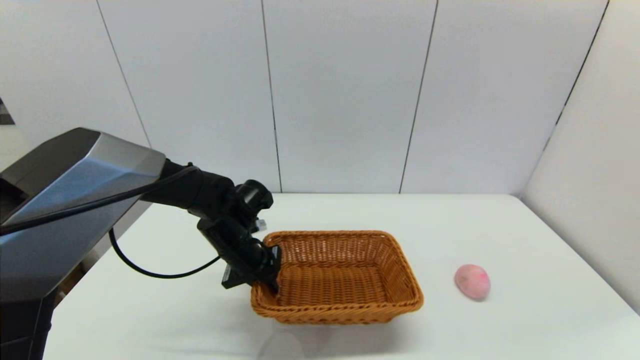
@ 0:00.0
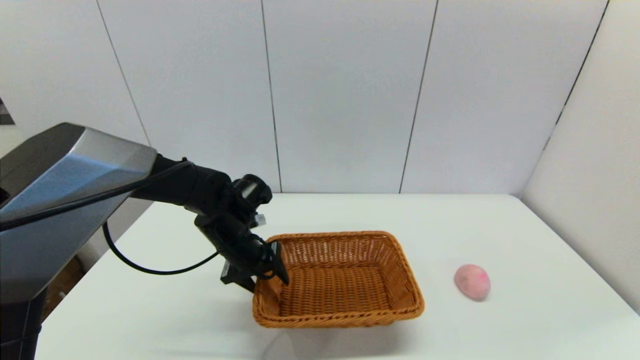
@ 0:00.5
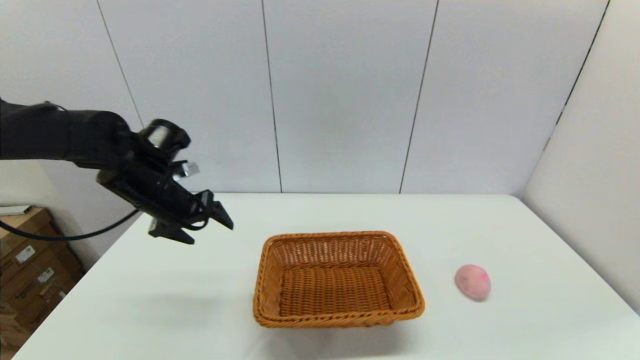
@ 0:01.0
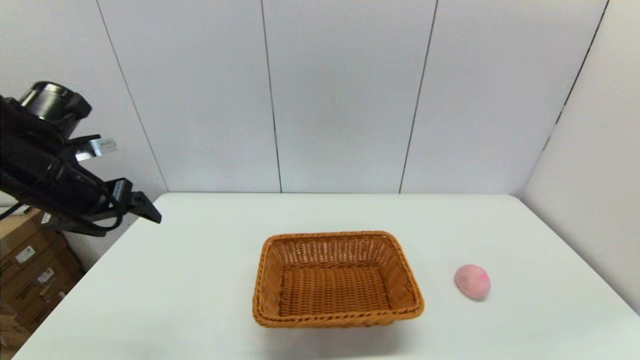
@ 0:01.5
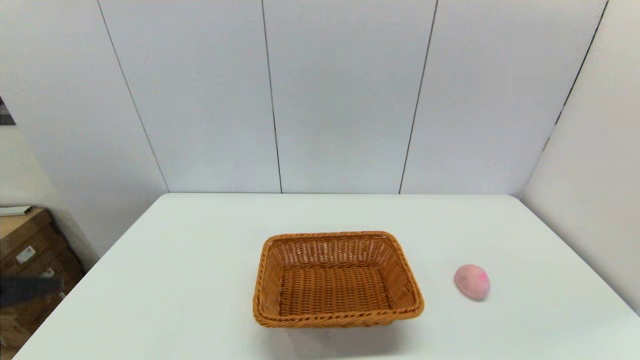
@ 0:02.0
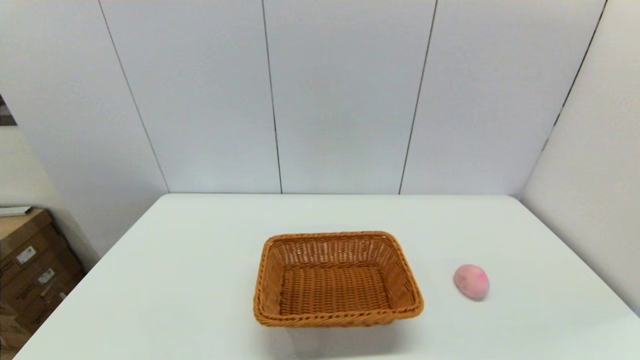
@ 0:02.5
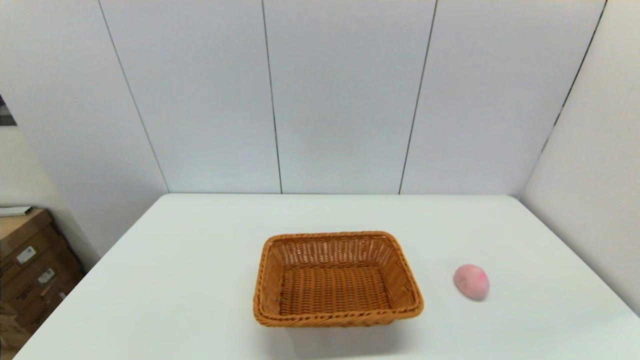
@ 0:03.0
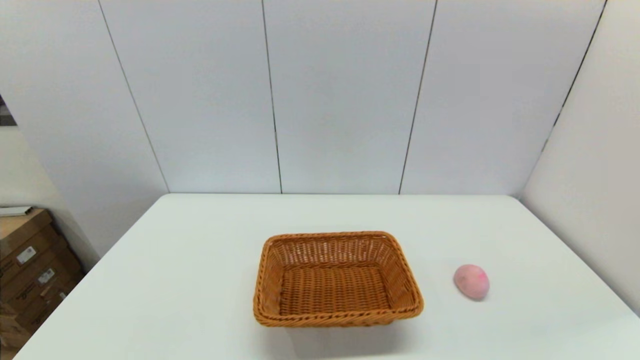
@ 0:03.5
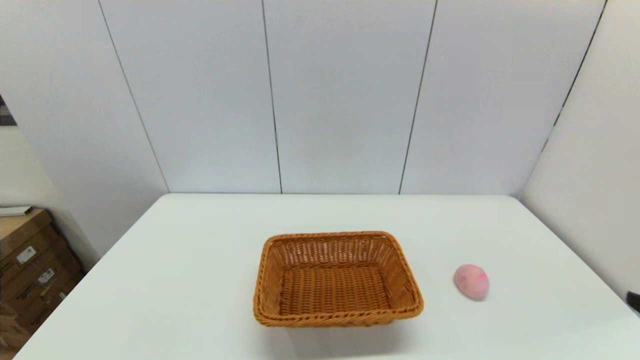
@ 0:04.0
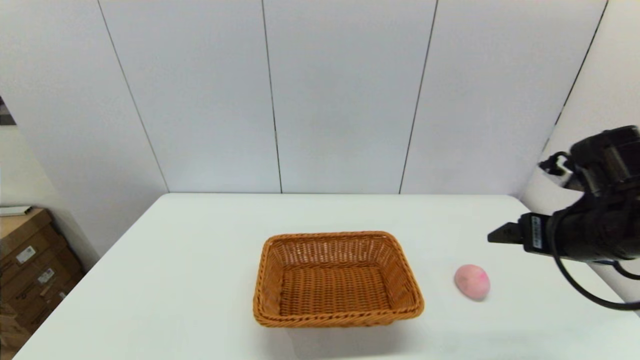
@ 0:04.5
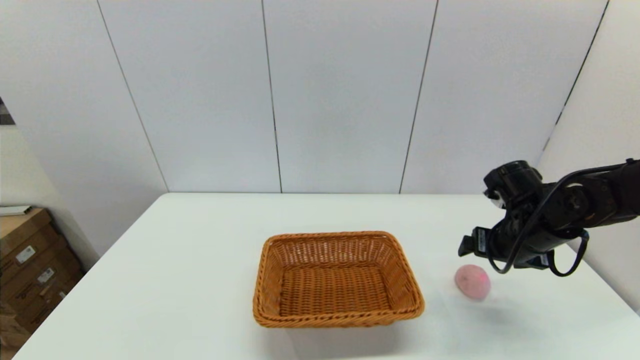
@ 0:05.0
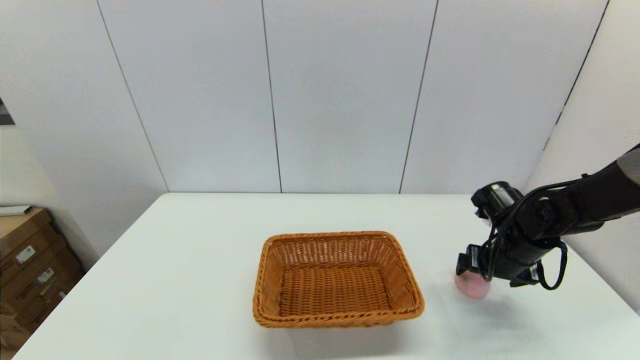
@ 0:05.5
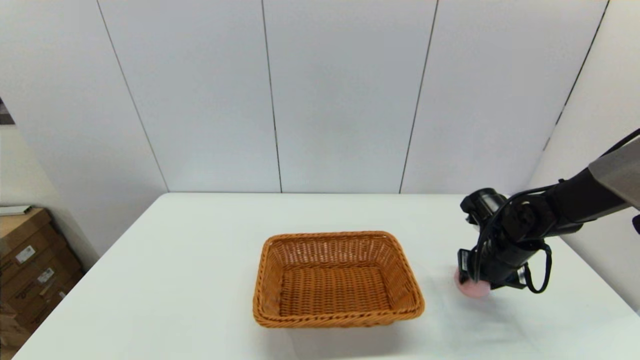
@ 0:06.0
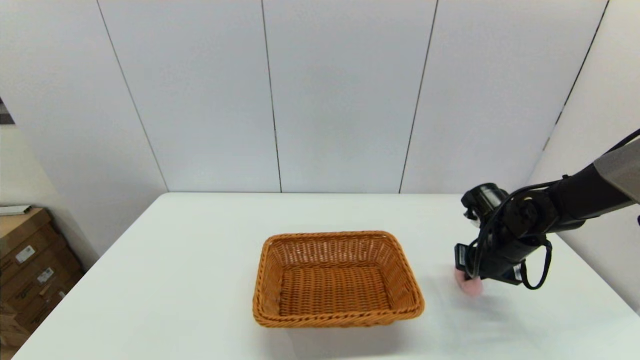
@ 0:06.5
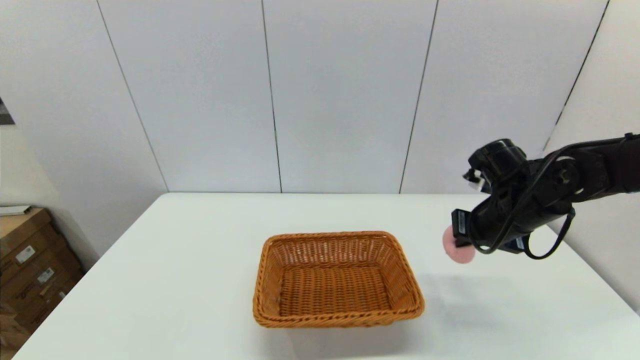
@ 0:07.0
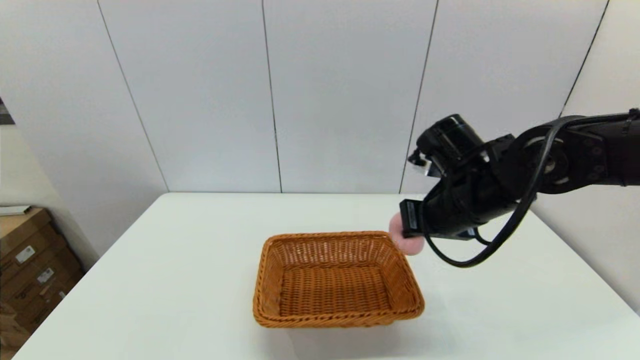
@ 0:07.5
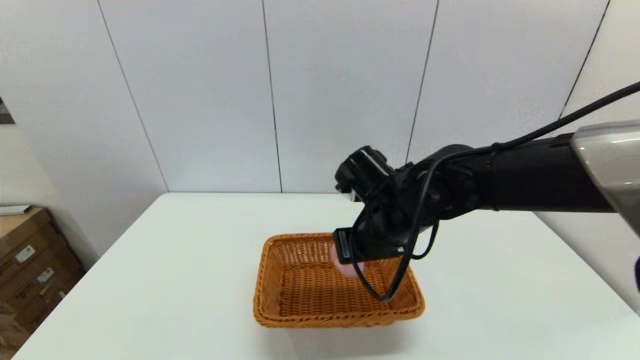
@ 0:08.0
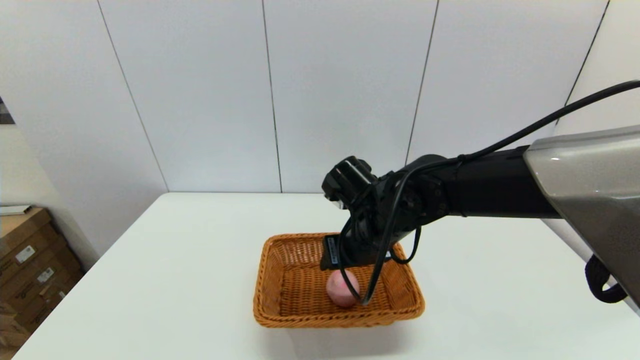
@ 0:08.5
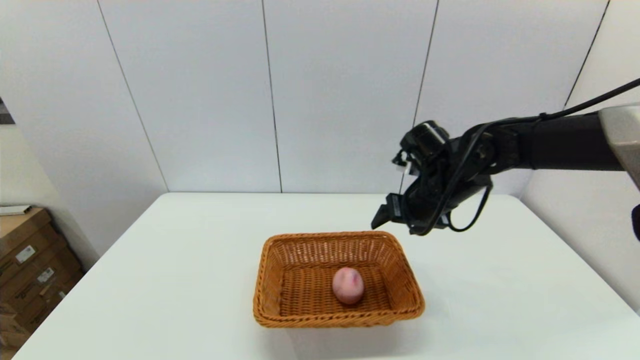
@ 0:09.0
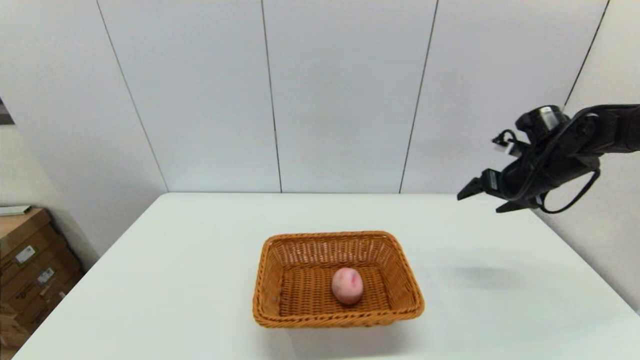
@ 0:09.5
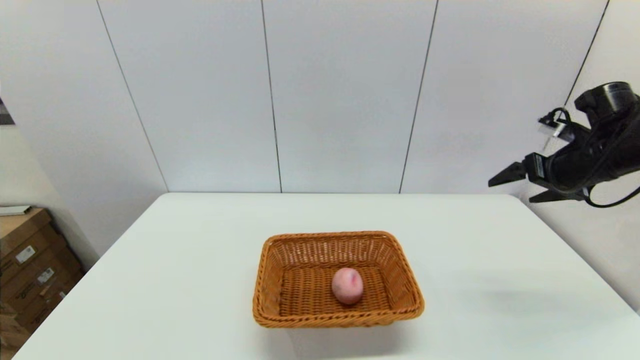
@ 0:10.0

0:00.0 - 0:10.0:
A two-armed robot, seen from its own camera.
Step, 0:01.0 - 0:06.0: Grasp the peach with the right gripper.
Step, 0:07.0 - 0:08.5: Place the peach into the light basket with the right gripper.
0:00.0 - 0:02.0: The left gripper goes approximately 35 cm backward, upward and to the left, and opens up.
0:04.0 - 0:06.0: The right gripper travels forward and downward by roughly 35 cm, and closes its fingers.
0:06.0 - 0:08.0: The right gripper moves to the left and upward, approximately 25 cm.
0:08.0 - 0:10.0: The right gripper goes roughly 30 cm to the right, and opens.

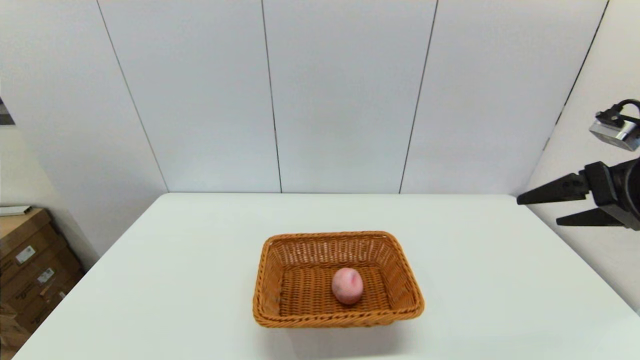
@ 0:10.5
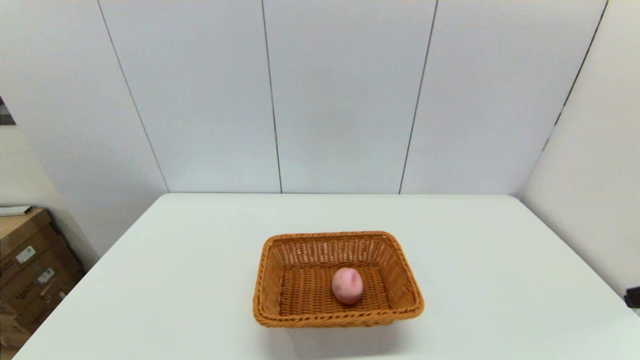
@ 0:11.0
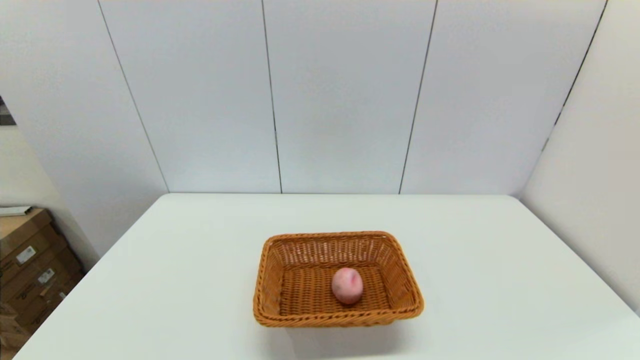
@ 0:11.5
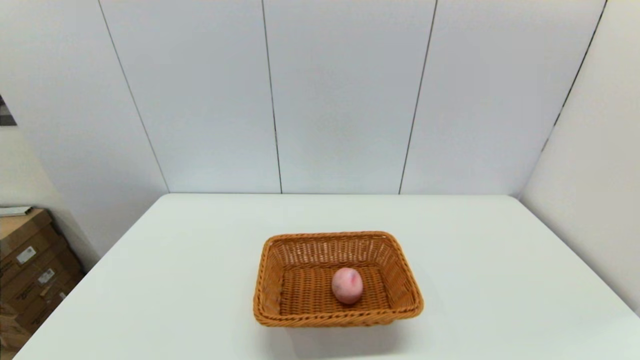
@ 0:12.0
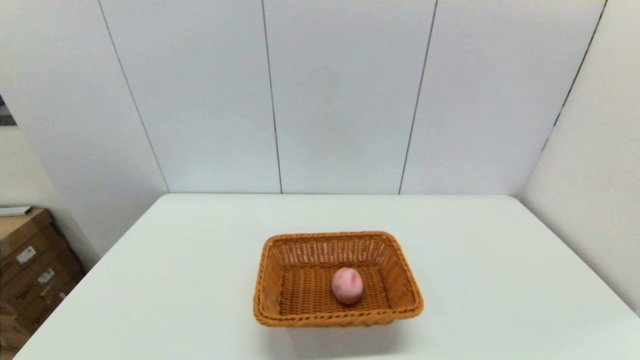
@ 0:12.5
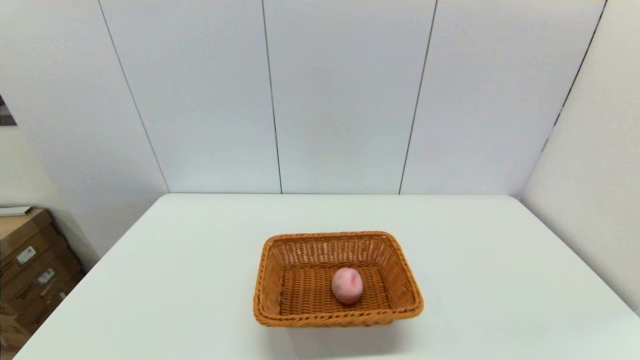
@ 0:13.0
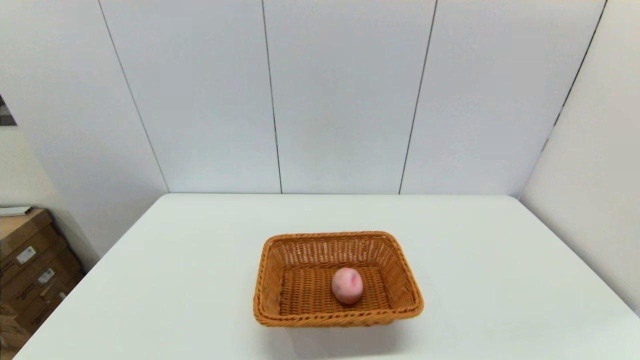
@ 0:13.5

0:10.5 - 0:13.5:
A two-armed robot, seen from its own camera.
0:10.5 - 0:12.0: The right gripper is displaced backward by some 25 cm.

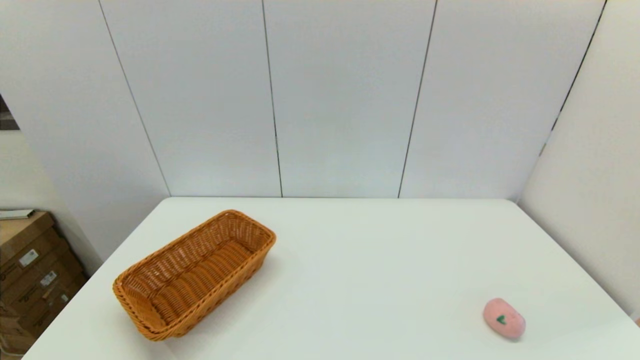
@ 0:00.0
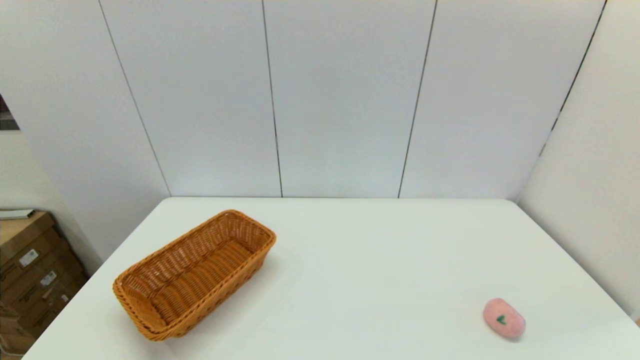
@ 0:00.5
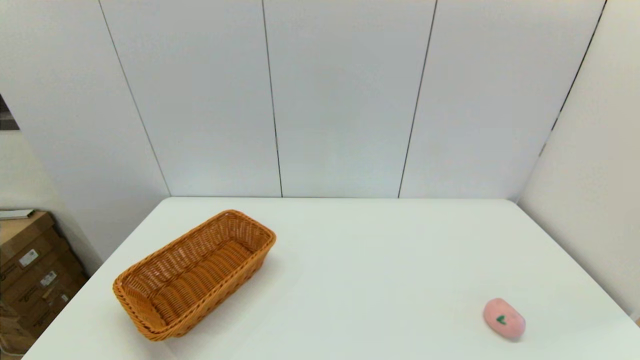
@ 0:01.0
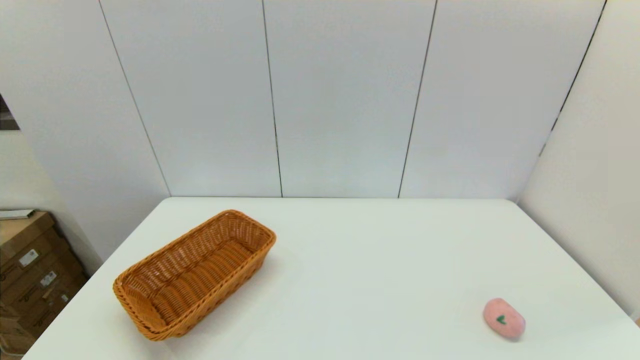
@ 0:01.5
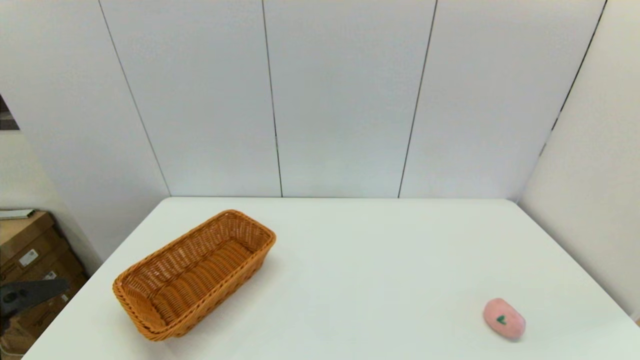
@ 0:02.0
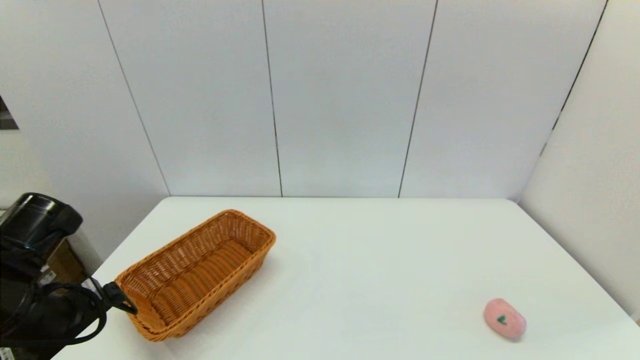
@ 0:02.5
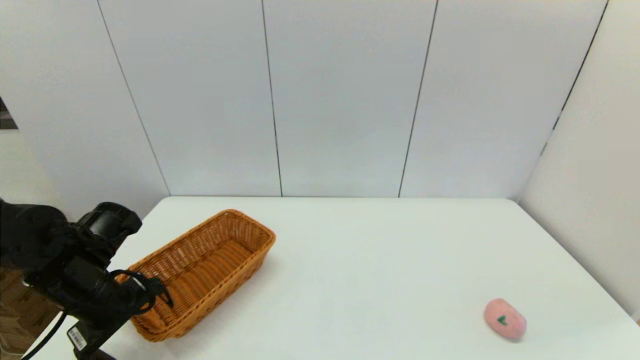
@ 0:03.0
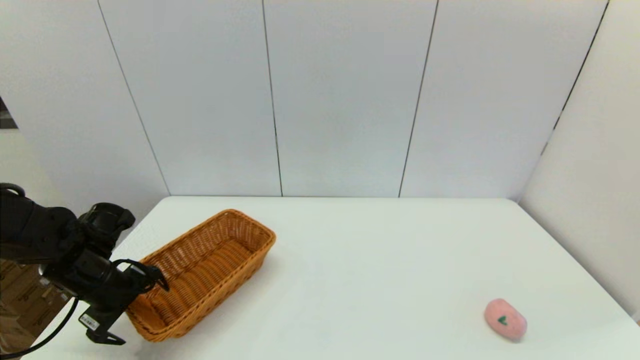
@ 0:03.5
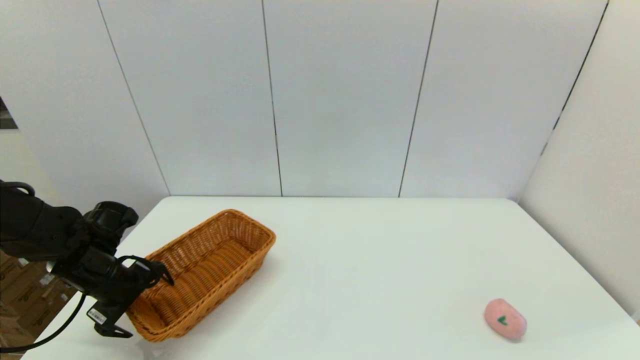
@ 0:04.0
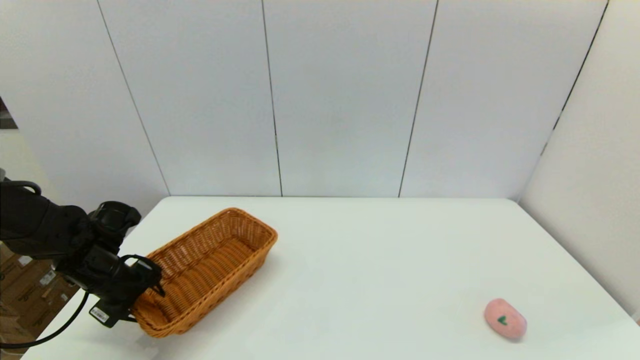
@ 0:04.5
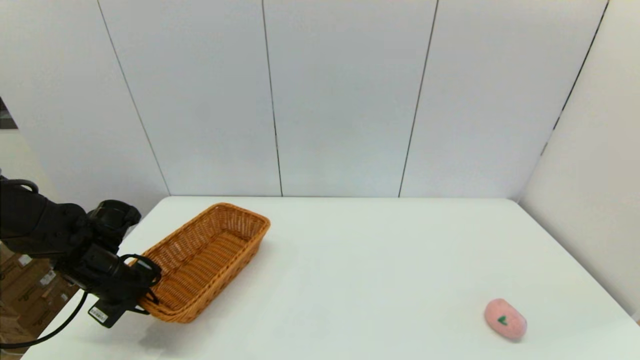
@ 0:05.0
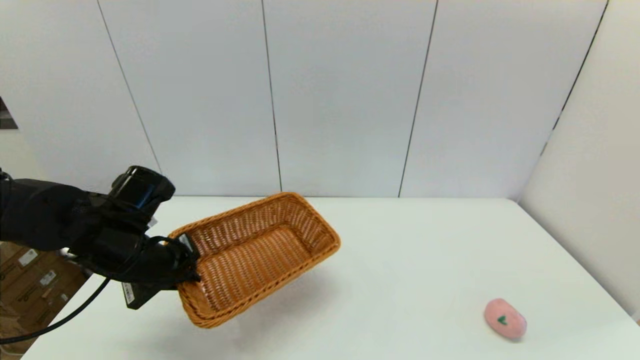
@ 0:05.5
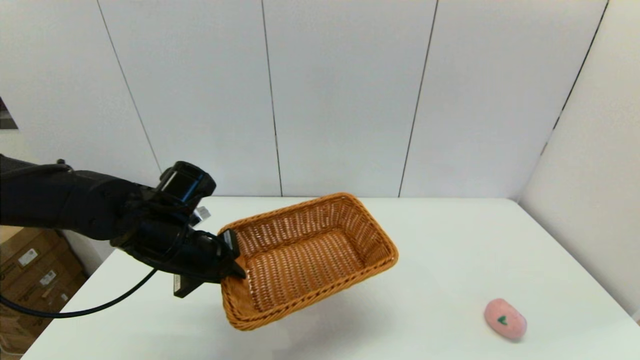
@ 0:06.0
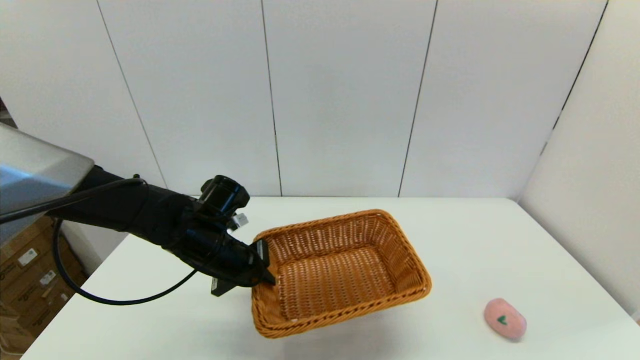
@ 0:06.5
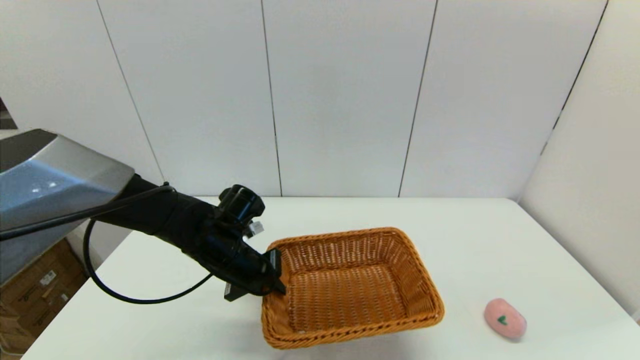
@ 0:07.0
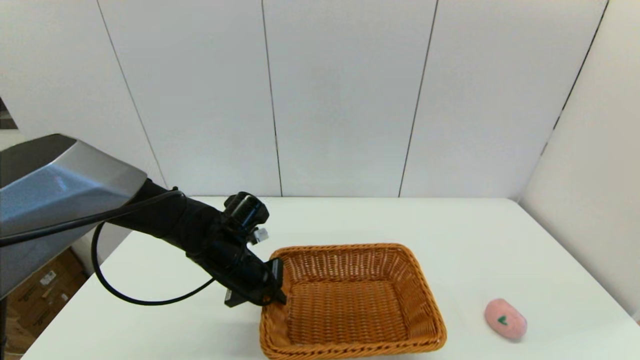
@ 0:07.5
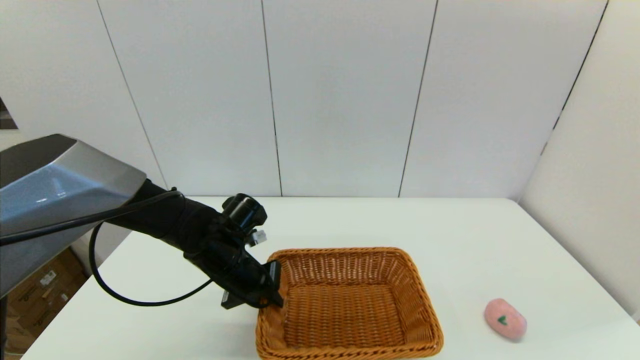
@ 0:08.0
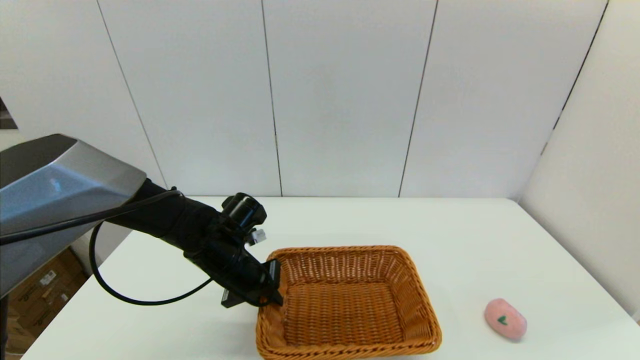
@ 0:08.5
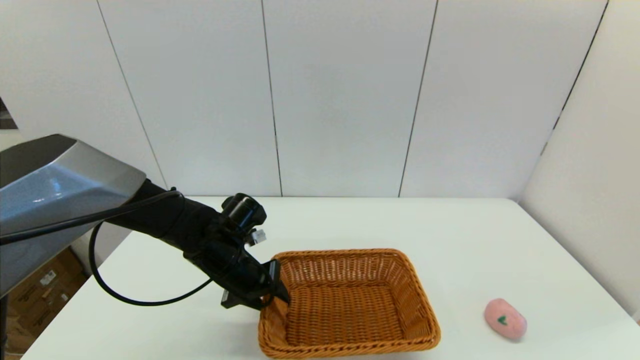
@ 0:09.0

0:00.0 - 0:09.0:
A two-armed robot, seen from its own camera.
Step, 0:00.0 - 0:04.5: Grasp the light basket with the left gripper.
Step, 0:05.0 - 0:09.0: Place the light basket on the middle of the table with the left gripper.
0:02.0 - 0:04.5: The left gripper shifts roughly 25 cm forward and downward, and closes its fingers.
0:04.5 - 0:07.0: The left gripper travels to the right by about 20 cm, and closes up.
0:07.0 - 0:09.0: The left gripper opens up.
